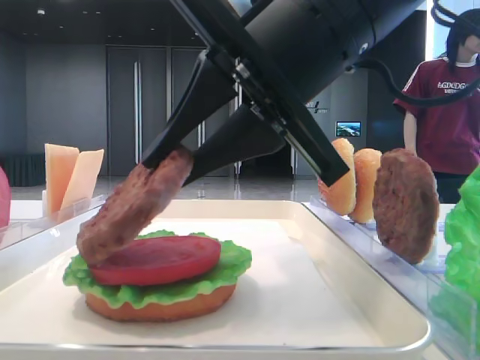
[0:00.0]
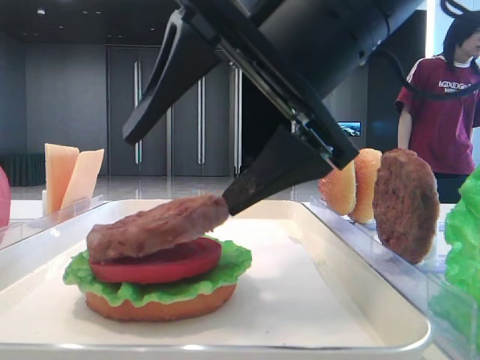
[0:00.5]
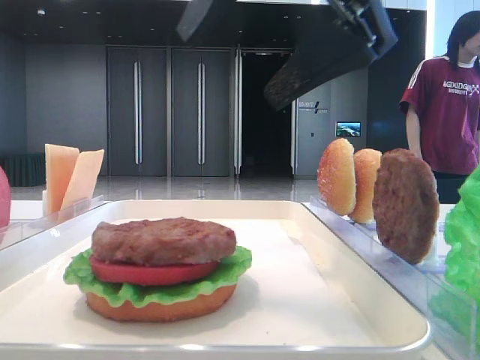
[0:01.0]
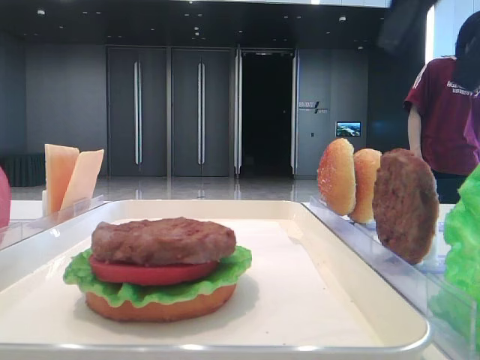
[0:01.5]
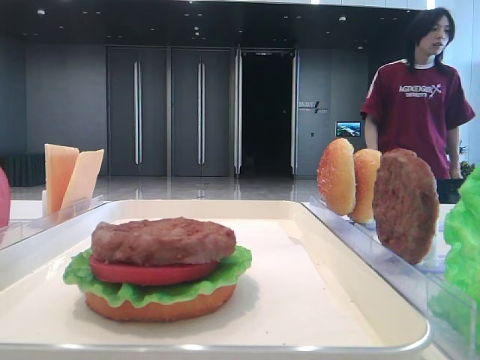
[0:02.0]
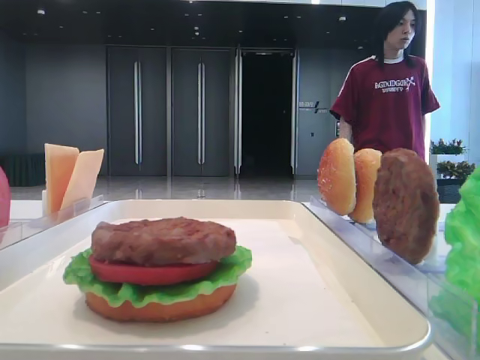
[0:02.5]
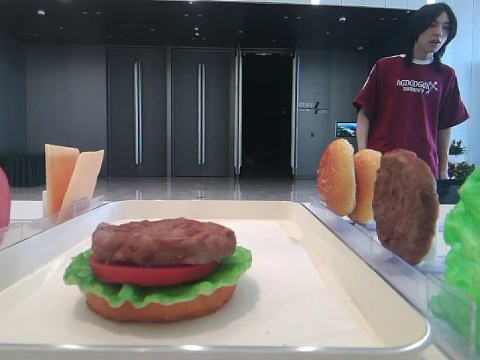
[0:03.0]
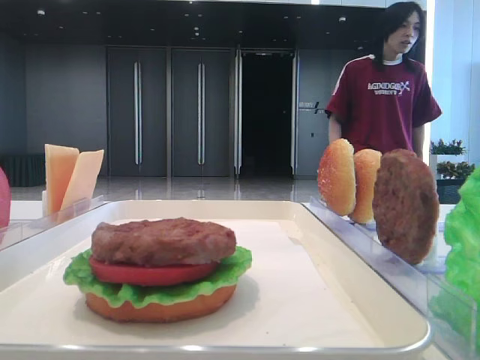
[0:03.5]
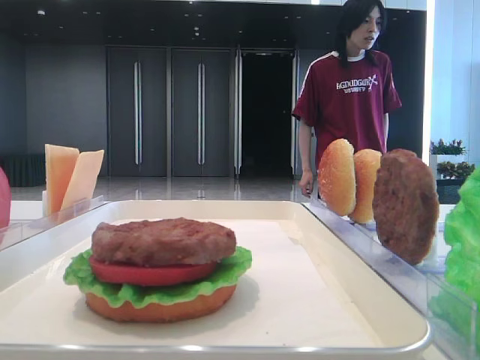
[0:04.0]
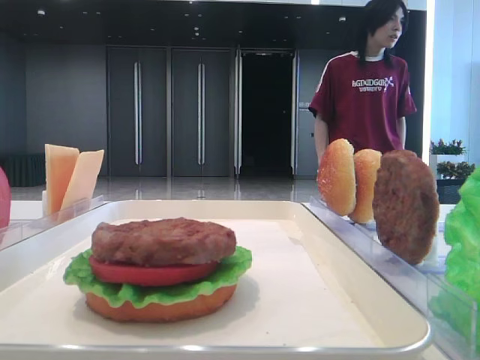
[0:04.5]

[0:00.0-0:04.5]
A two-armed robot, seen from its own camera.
0:00.0 to 0:02.0: The right gripper goes roughly 25 cm to the right, and opens up.
0:02.0 to 0:04.5: The right gripper moves backward, about 25 cm.

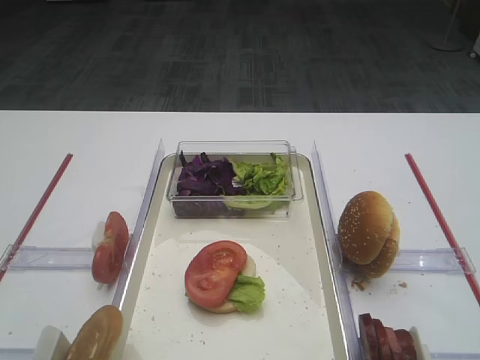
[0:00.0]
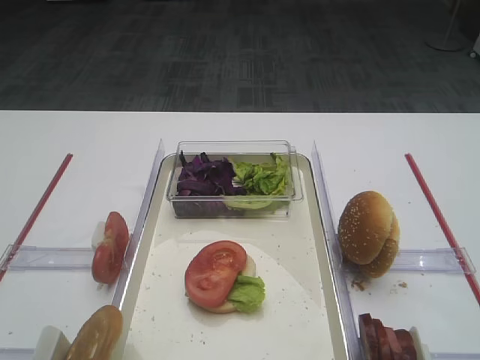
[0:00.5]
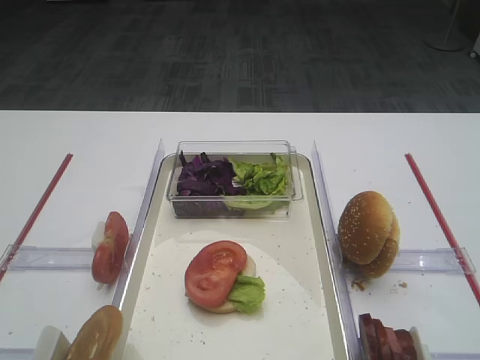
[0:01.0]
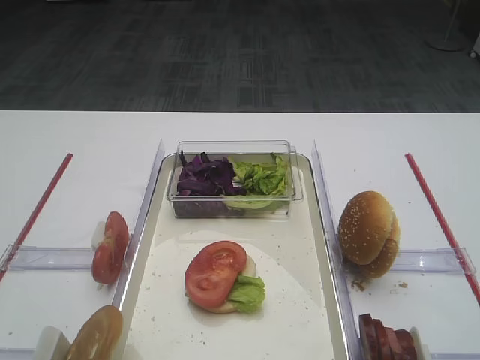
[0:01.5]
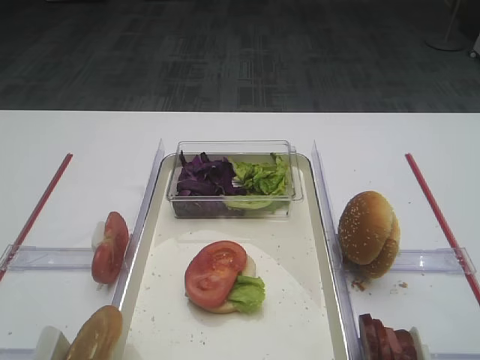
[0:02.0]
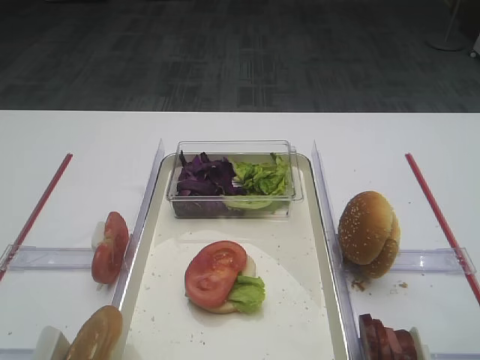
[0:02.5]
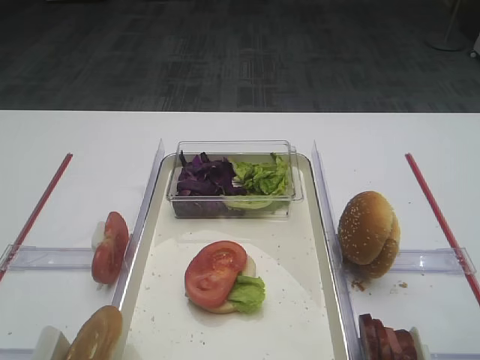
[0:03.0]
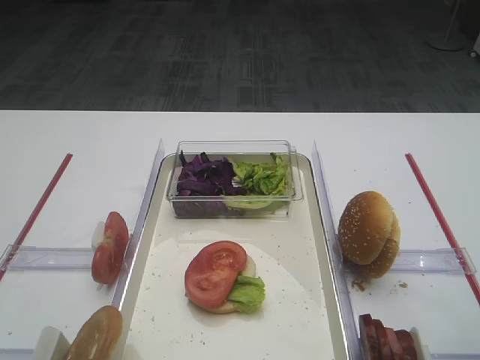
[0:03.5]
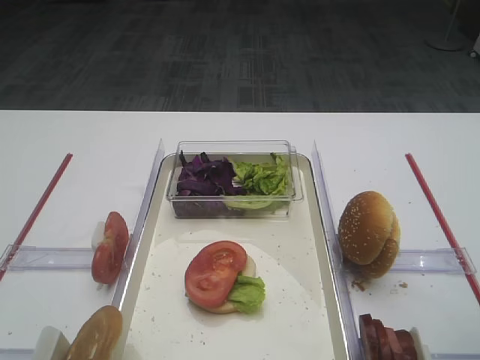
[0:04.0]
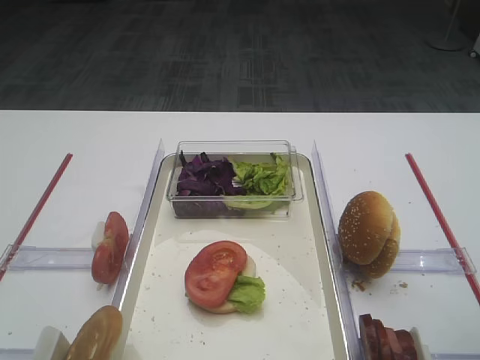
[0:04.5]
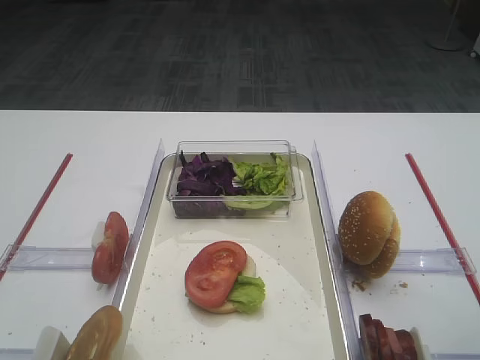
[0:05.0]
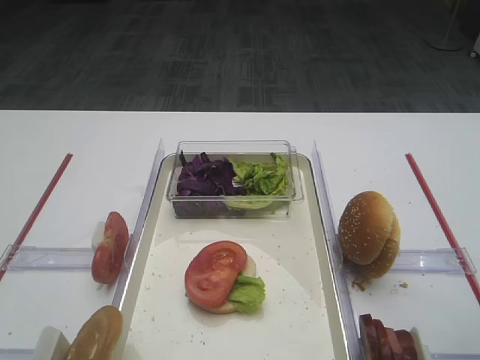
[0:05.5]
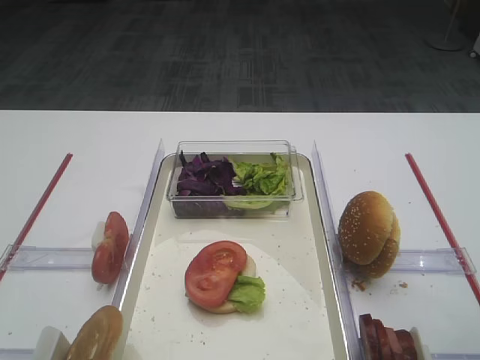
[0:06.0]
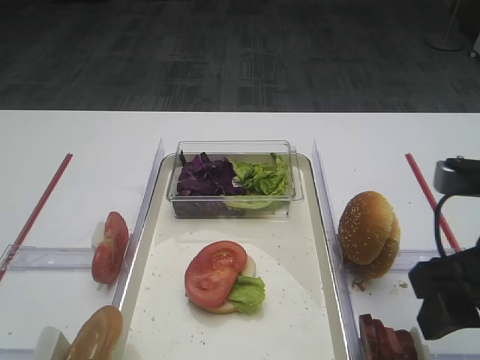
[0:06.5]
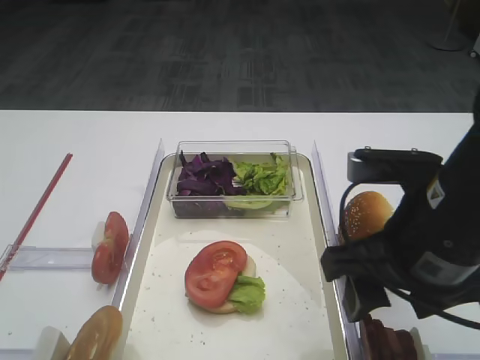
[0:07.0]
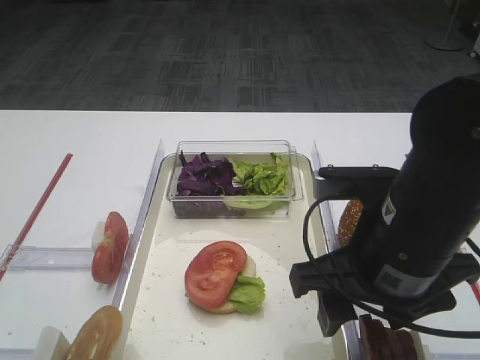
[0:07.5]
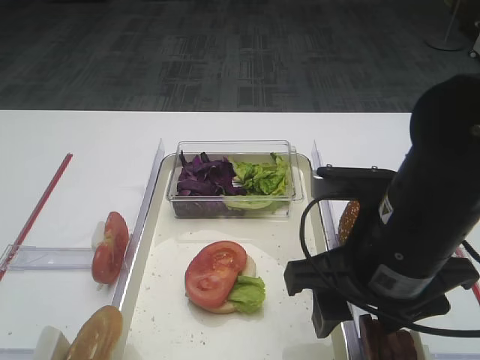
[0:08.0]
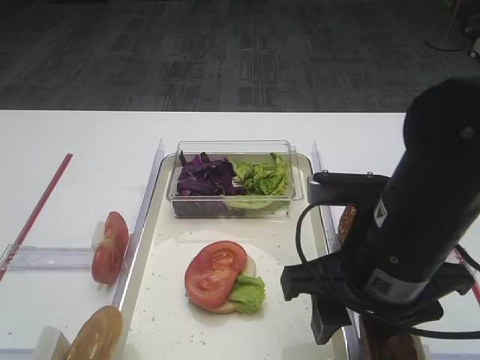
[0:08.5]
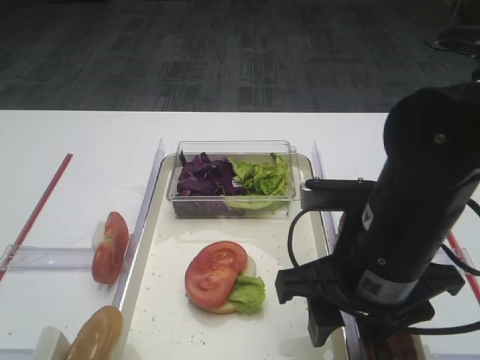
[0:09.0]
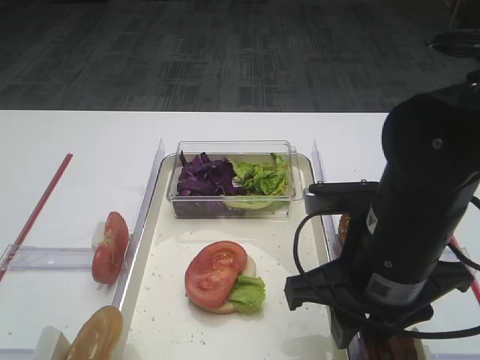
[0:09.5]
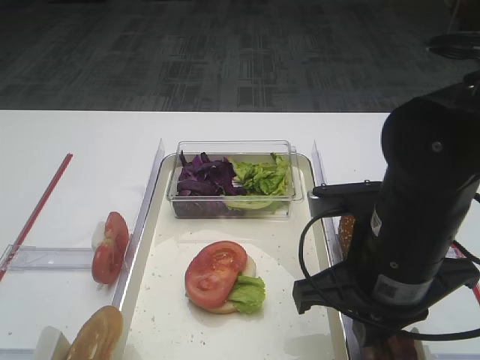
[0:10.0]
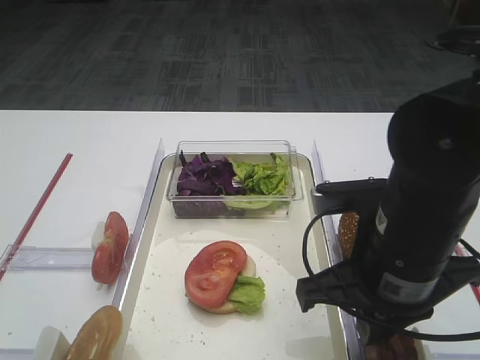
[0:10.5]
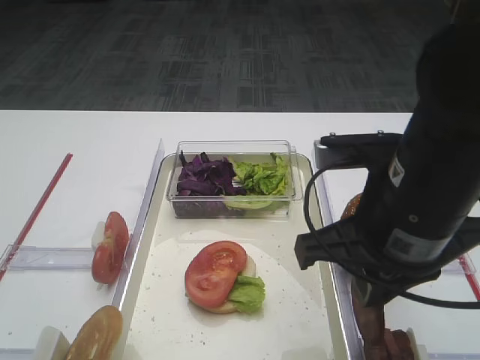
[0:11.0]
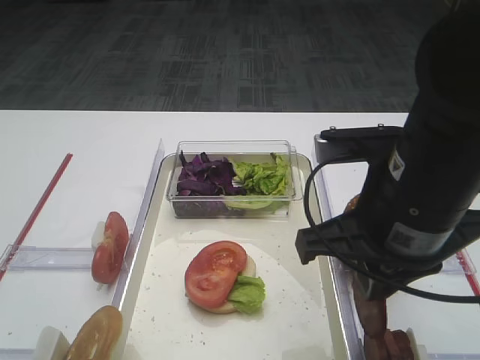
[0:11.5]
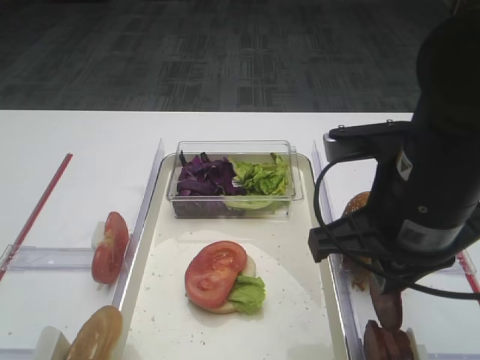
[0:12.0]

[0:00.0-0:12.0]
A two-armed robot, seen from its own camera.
Step, 0:00.0 to 0:11.0: Pick up the cutlet with the right gripper.
0:06.0 to 0:08.0: The right gripper shifts approximately 15 cm to the left.
0:08.0 to 0:10.0: The right gripper closes up.
0:10.0 to 0:12.0: The right gripper is displaced upward by roughly 5 cm.

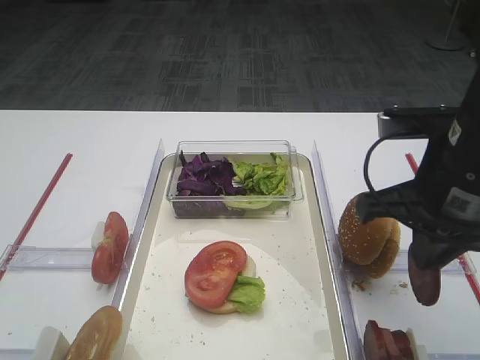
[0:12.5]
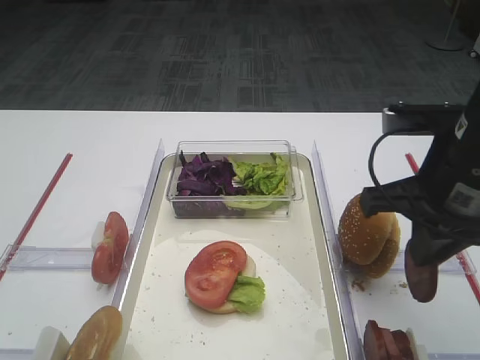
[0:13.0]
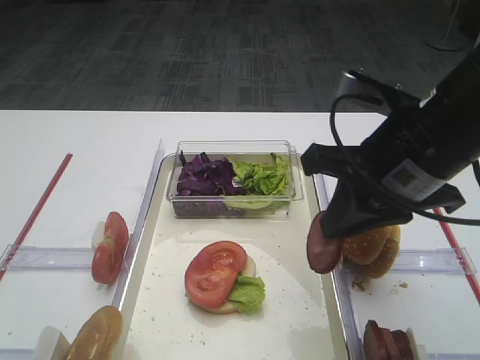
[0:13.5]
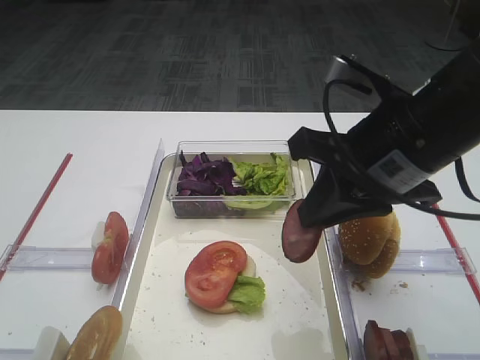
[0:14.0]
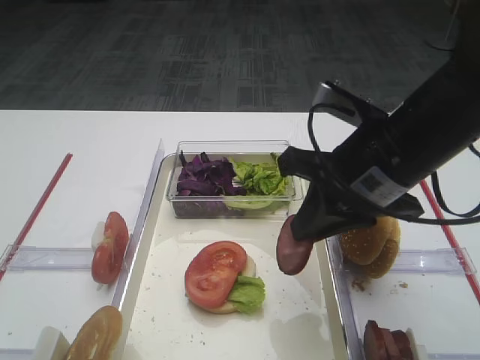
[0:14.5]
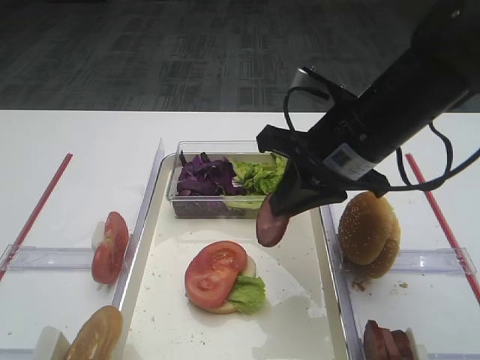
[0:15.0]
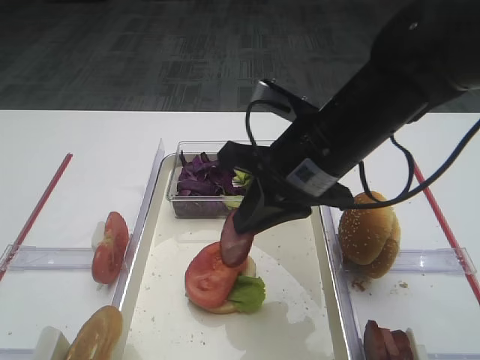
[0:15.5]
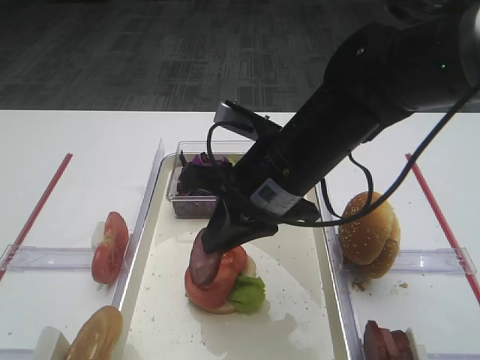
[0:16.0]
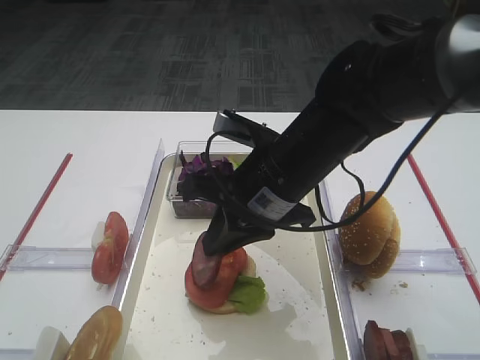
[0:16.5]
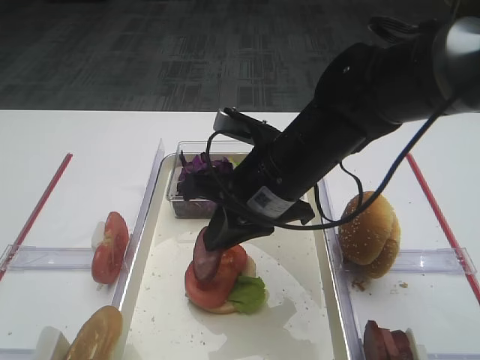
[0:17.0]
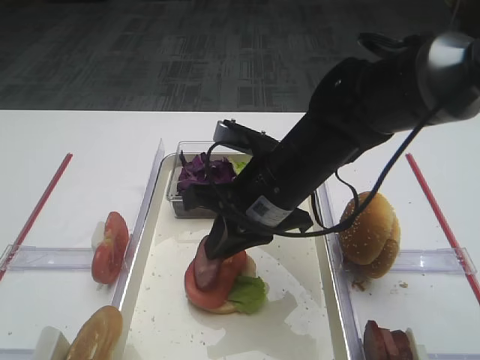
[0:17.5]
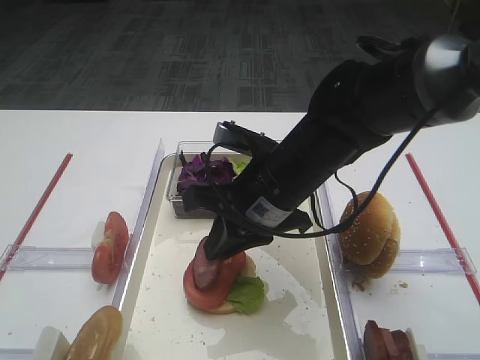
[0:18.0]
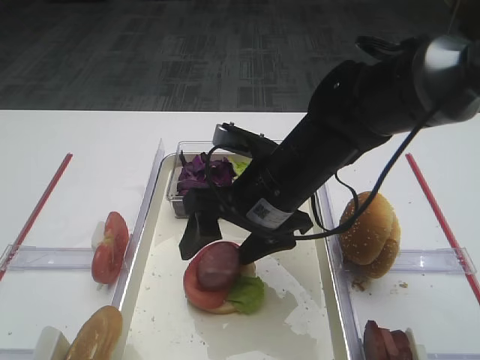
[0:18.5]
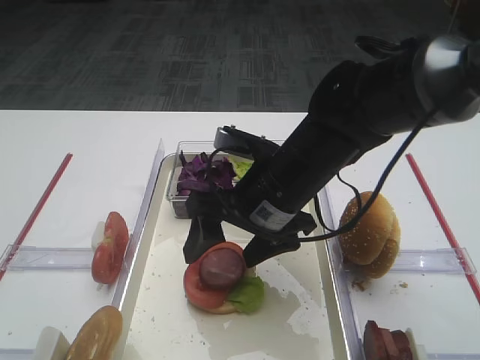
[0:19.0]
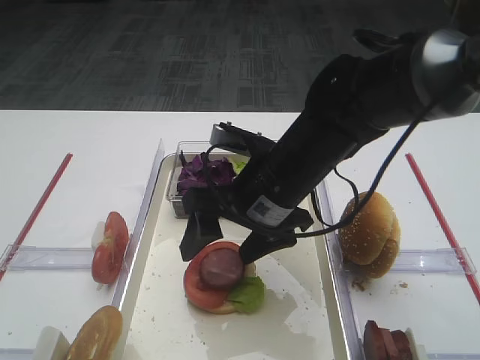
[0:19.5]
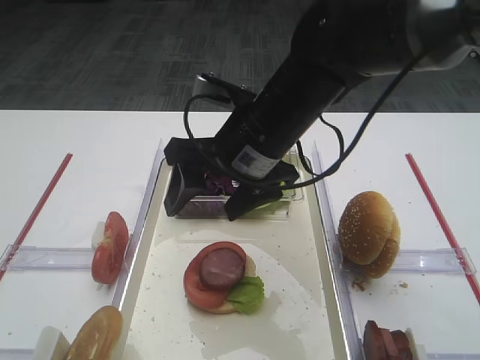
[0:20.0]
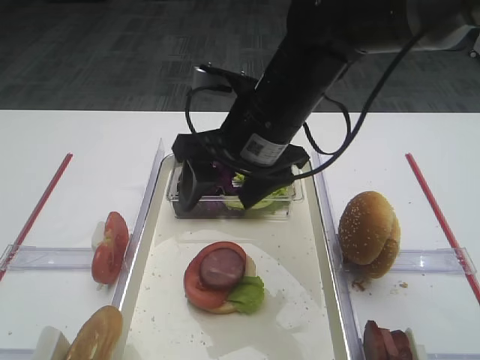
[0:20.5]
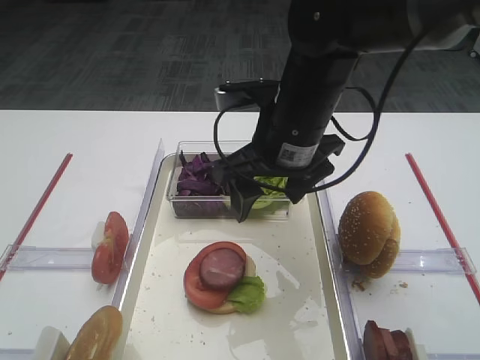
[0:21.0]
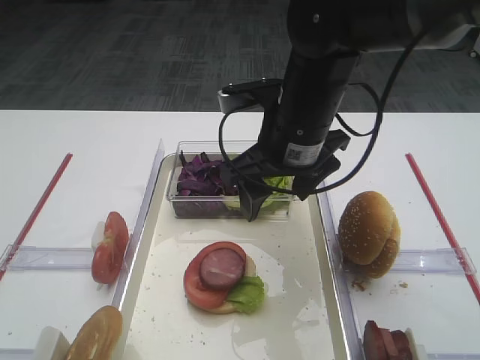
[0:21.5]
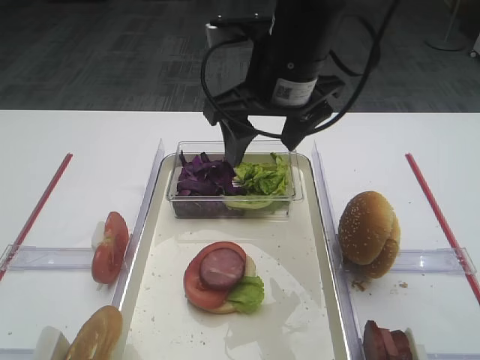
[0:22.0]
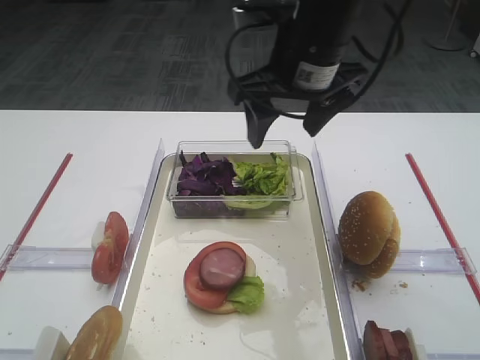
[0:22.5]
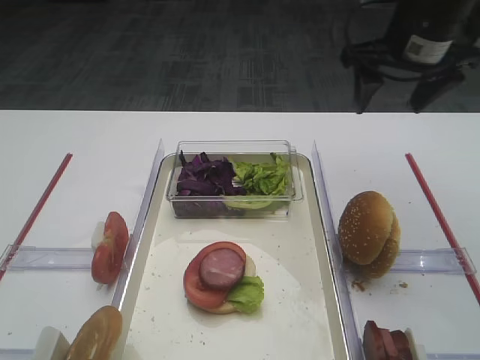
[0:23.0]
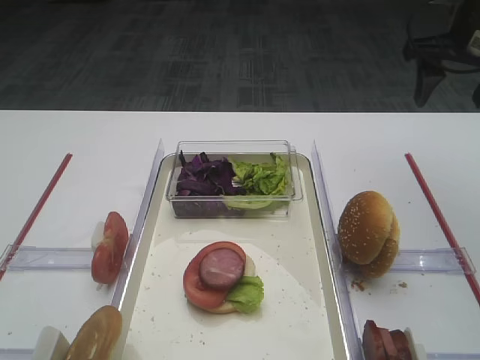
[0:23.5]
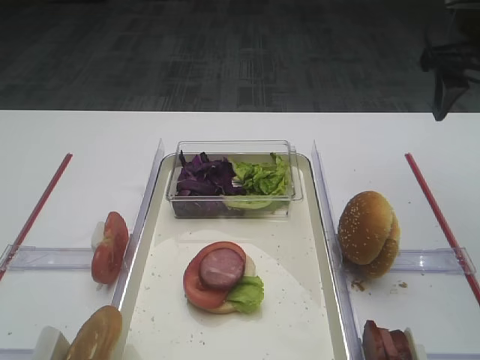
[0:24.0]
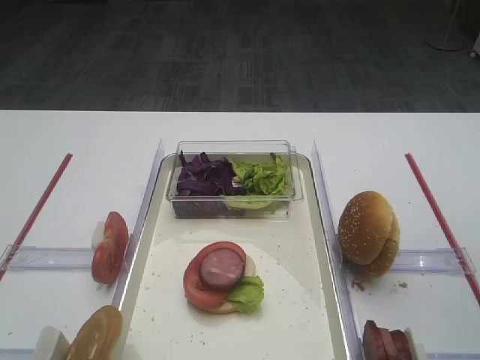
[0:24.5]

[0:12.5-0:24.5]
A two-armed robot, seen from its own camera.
Step, 0:12.5 to 0:19.5: Place the cutlet on the tomato slice with the right gripper.
0:12.5 to 0:14.5: The right gripper ends up about 5 cm from where it was.
0:14.5 to 0:16.5: The right gripper shifts some 10 cm to the left.
0:16.5 to 0:18.5: The right gripper opens its fingers.
0:18.5 to 0:20.5: The right gripper is displaced upward by roughly 5 cm.
0:20.5 to 0:22.5: The right gripper goes roughly 5 cm upward.
0:22.5 to 0:24.5: The right gripper moves to the right and backward, approximately 25 cm.
